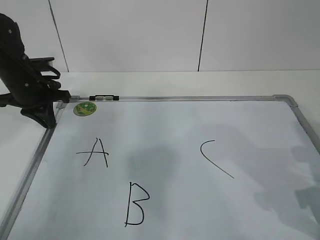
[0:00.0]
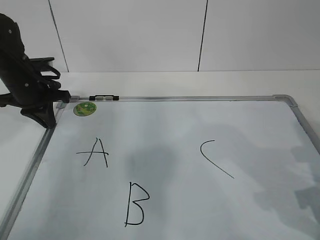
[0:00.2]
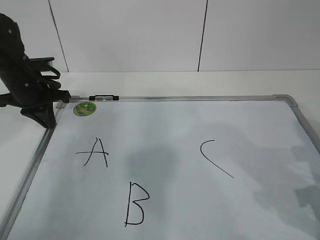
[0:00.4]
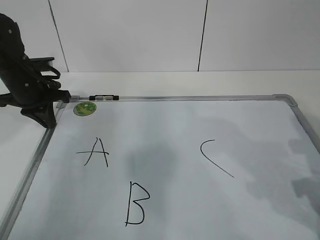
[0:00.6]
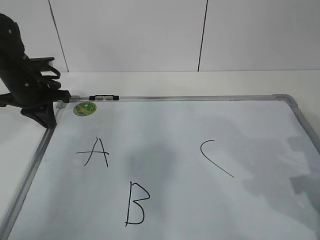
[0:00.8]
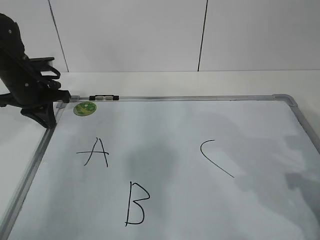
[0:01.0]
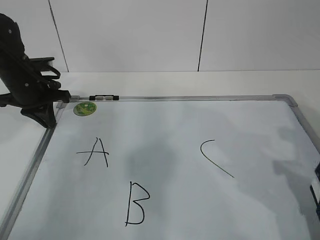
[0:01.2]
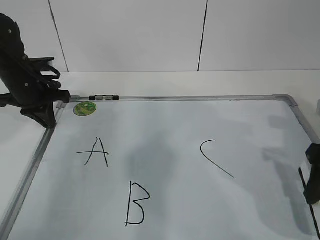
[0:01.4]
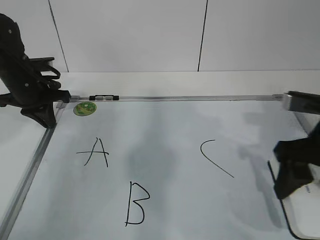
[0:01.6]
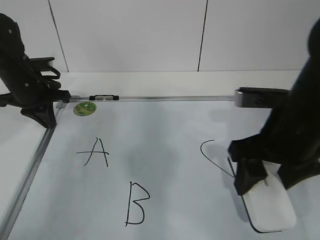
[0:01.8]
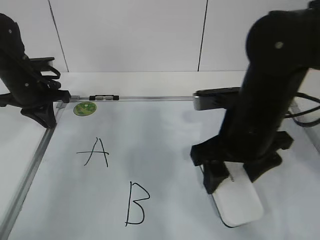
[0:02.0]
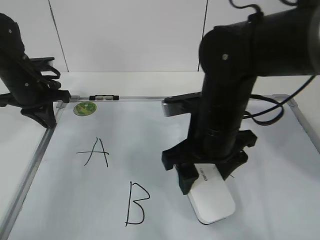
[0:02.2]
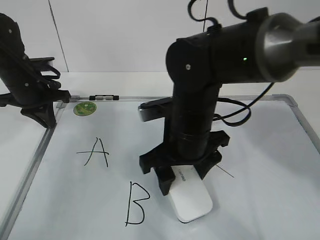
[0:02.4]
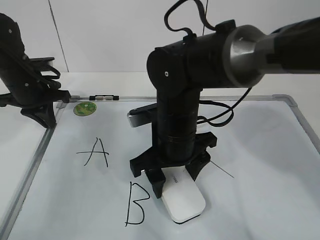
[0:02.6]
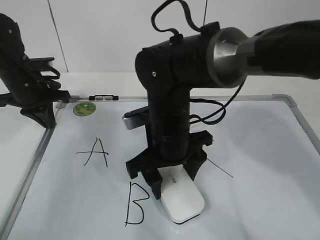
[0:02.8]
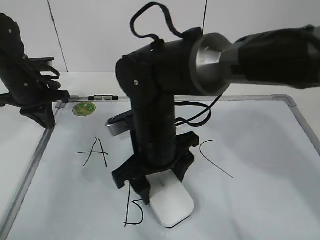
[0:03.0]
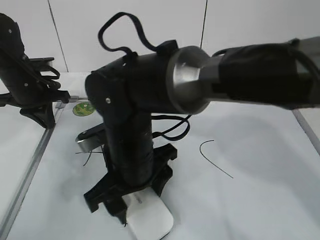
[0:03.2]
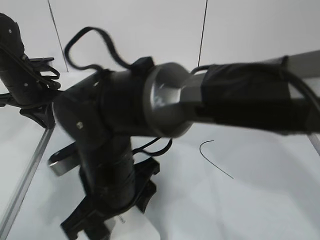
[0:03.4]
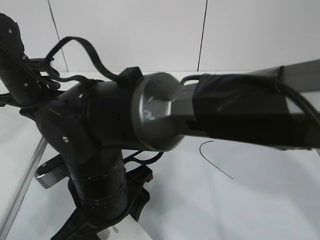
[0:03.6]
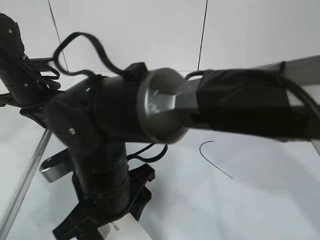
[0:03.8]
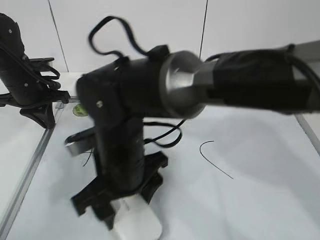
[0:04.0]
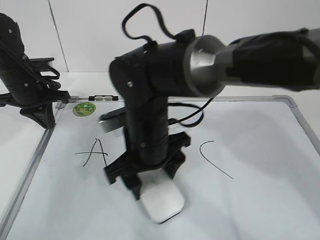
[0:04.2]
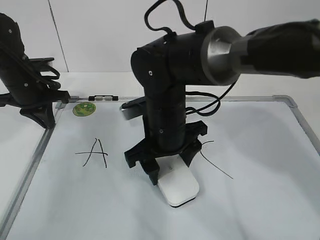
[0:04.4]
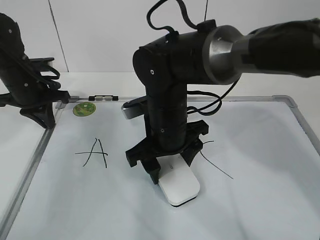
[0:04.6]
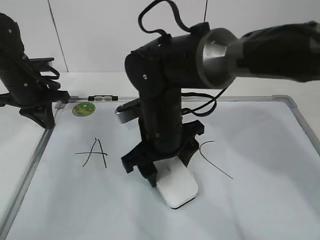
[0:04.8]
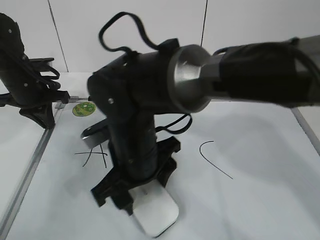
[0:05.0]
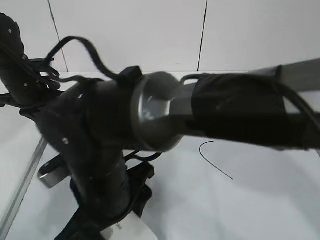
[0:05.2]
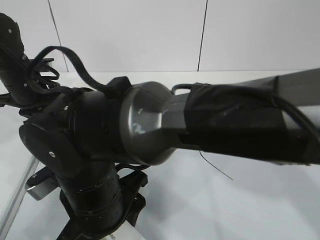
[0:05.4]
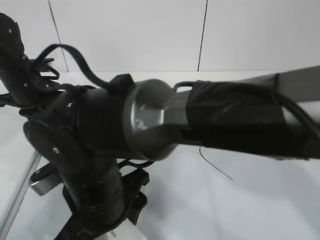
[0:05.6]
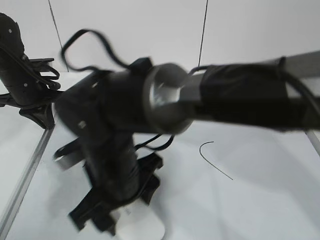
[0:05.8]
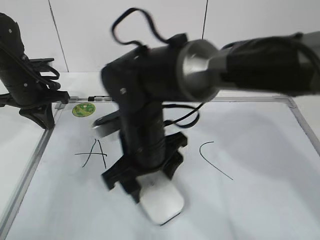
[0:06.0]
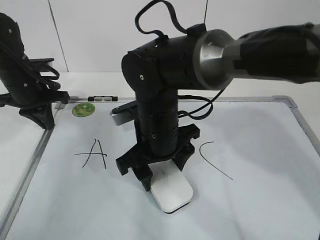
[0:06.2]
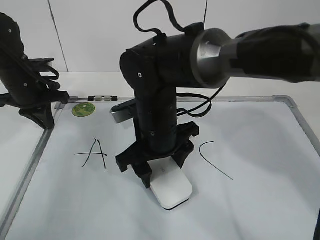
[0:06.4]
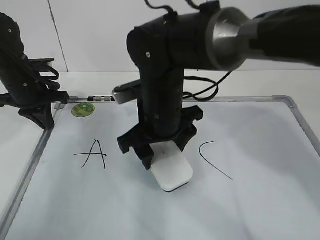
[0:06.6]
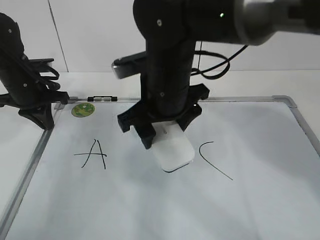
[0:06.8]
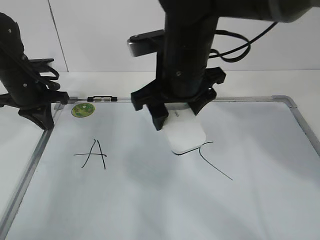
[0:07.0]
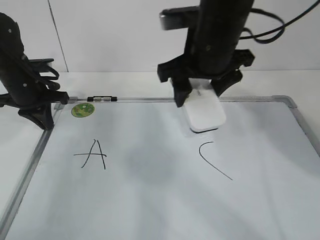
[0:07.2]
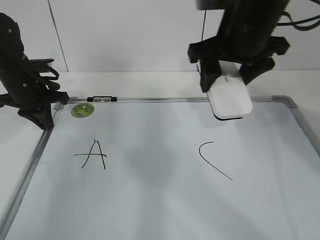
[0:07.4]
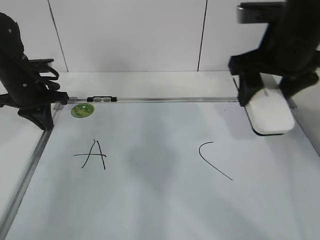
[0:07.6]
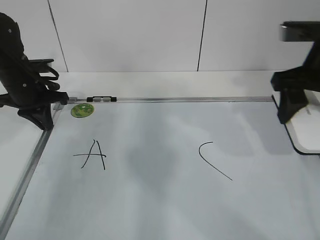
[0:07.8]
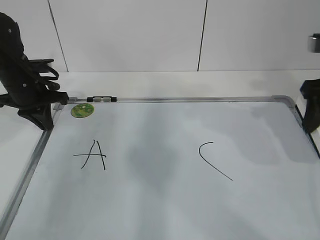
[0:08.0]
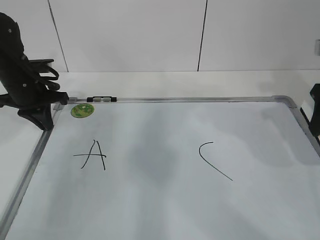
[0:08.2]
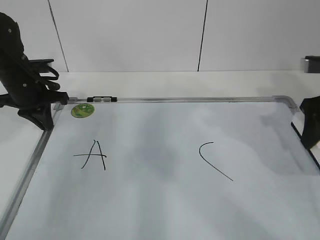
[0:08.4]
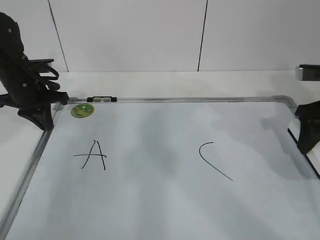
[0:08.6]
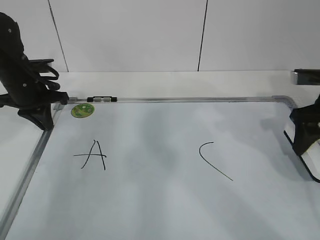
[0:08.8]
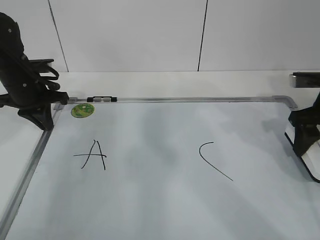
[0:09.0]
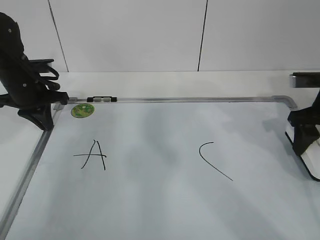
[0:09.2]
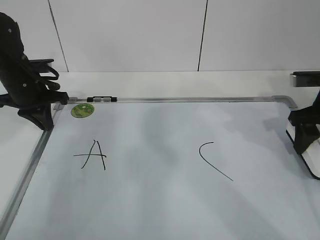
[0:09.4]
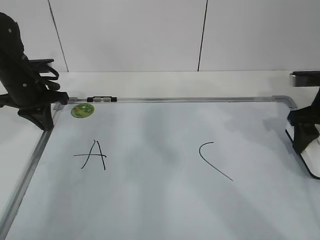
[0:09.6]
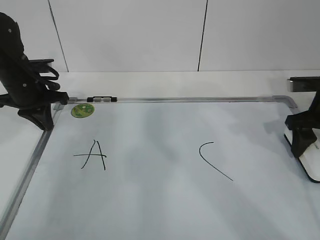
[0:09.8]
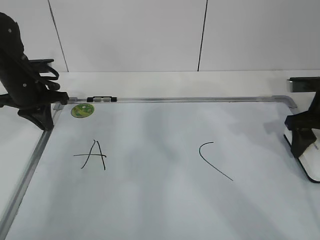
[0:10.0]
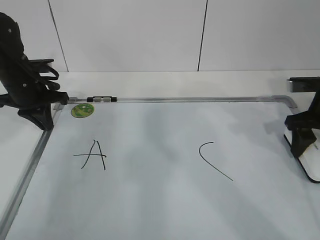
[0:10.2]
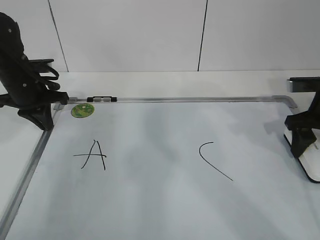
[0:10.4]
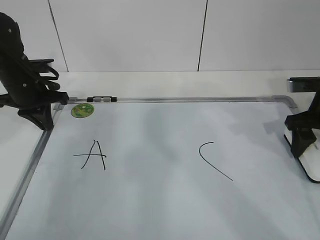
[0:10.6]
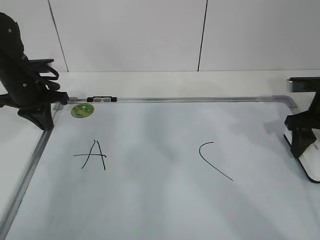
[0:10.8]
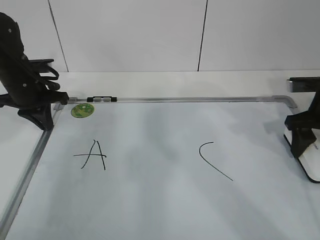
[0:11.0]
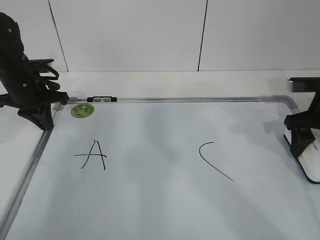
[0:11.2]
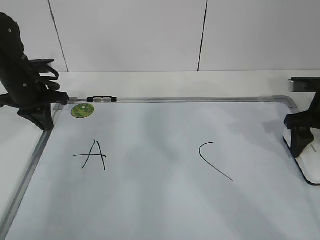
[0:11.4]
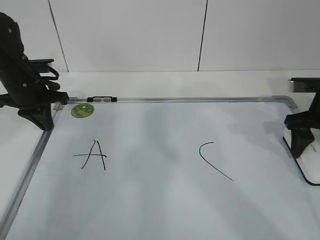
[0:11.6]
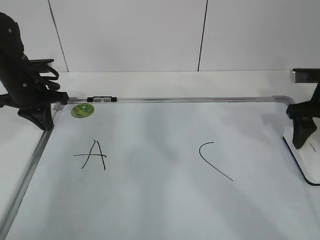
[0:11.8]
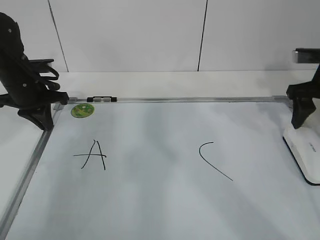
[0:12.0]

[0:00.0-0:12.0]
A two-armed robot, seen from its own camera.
Task of the whole recording: pick up the eraser on the blackboard and erase the letter "B".
Step, 0:00.0 to 0:03.6: Erase the letter B with your right hand.
Step, 0:03.8 to 0:07.6: Put down the eraser with your right hand.
0:00.0 to 0:01.6: The right gripper travels to the left and upward by roughly 10 cm.
0:01.6 to 0:03.0: The right gripper moves to the left, some 25 cm.
0:03.0 to 0:04.4: The right gripper reaches roughly 10 cm backward, then returns.
0:04.4 to 0:06.0: The right gripper moves roughly 10 cm backward and comes back.
0:06.0 to 0:07.6: The right gripper travels to the right and upward by approximately 25 cm.
0:07.6 to 0:09.0: The right gripper goes approximately 15 cm to the right and downward.
0:09.0 to 0:12.0: There are only small adjustments of the grippers.

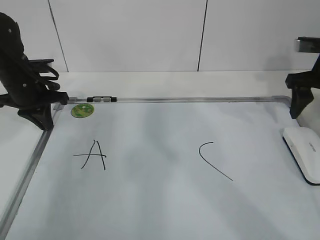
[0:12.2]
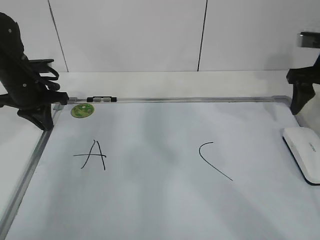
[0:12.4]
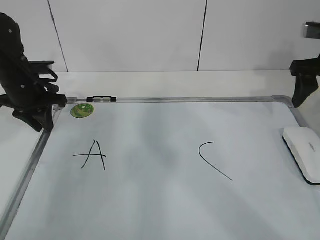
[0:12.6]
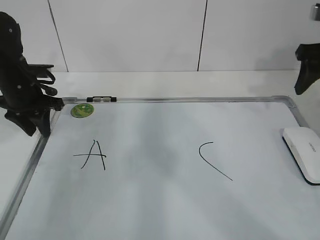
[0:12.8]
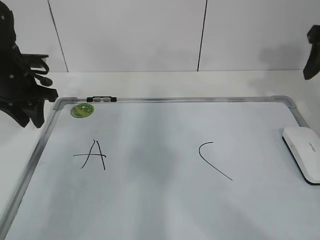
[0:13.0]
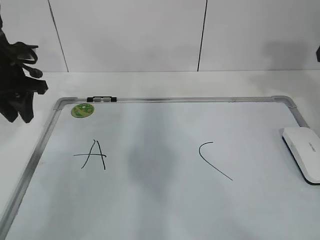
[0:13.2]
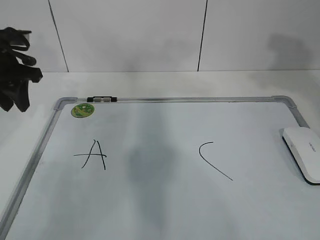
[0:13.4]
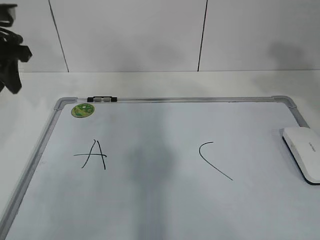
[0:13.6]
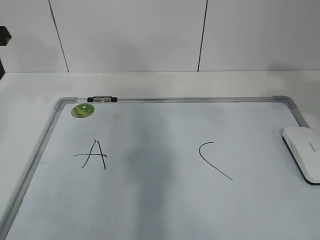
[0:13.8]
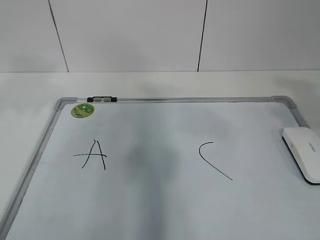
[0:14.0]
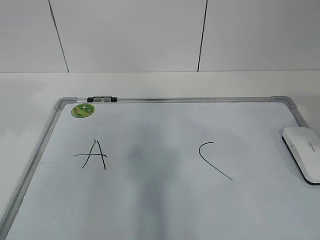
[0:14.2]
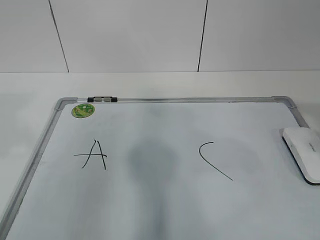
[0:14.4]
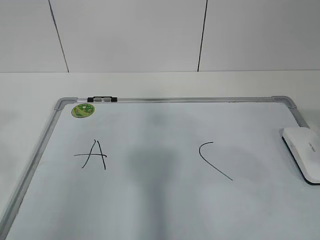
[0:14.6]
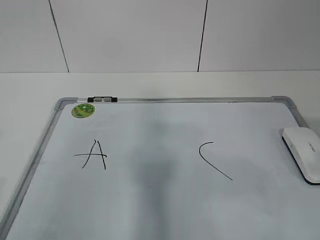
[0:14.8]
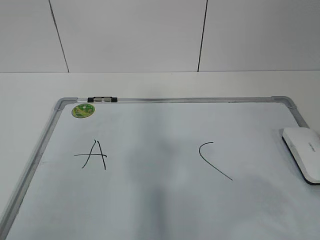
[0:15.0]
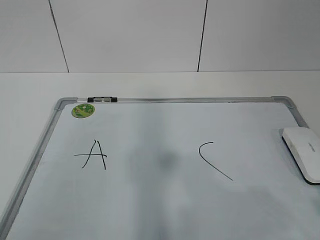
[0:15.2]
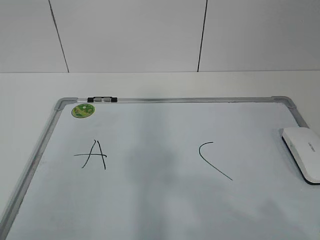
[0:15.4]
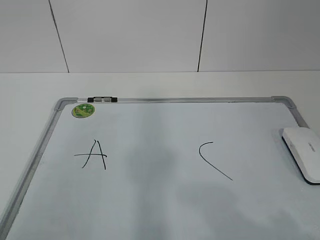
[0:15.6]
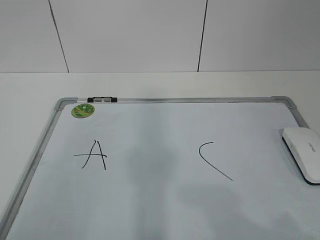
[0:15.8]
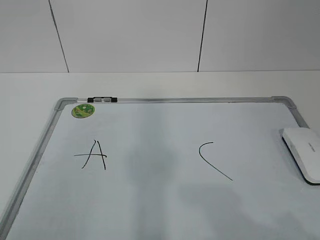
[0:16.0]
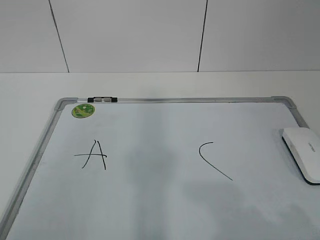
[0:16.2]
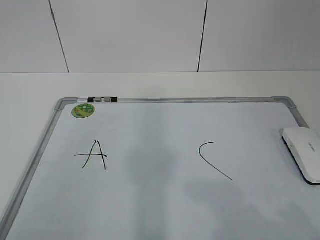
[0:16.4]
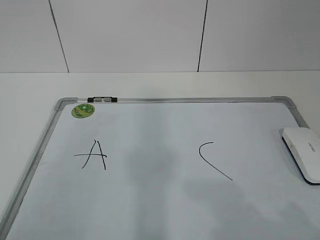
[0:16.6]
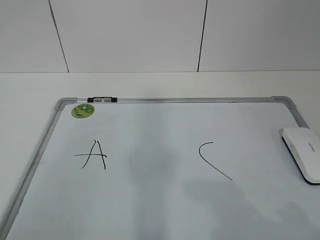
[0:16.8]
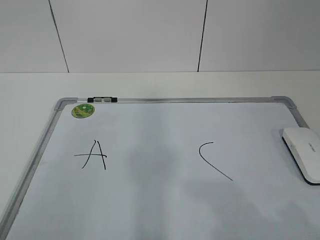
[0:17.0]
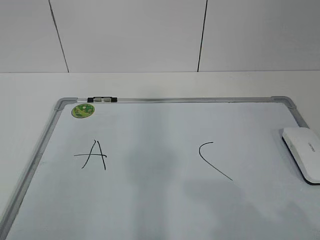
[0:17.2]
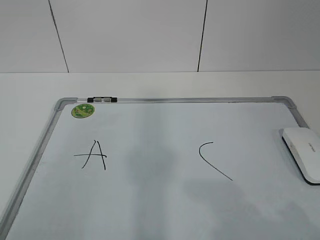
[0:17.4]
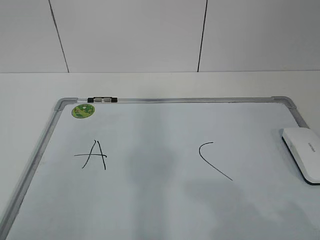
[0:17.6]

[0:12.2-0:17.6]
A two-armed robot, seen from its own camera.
Task of the whole recording: pick up the eraser on the blackboard and erase the letter "B".
0:12.2 to 0:13.6: The left gripper goes approximately 10 cm upward, and opens. Meanwhile the right gripper goes approximately 20 cm upward and backward.
0:13.6 to 0:15.0: The left gripper travels backward by some 35 cm. The right gripper is displaced backward by approximately 20 cm.
0:15.0 to 0:16.2: The right gripper is displaced backward and downward by roughly 10 cm.
0:16.2 to 0:17.6: Both grippers stay about where they are.
